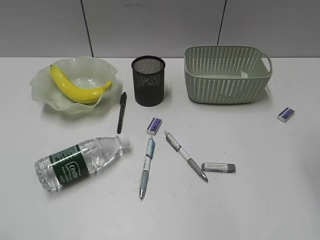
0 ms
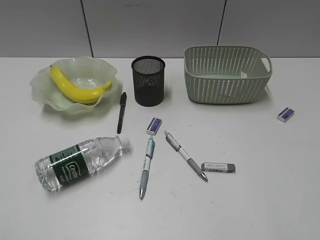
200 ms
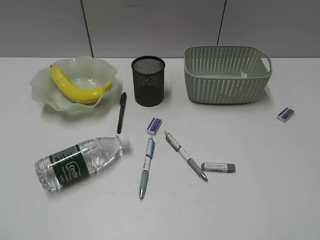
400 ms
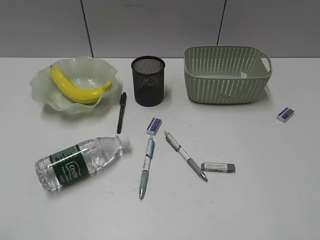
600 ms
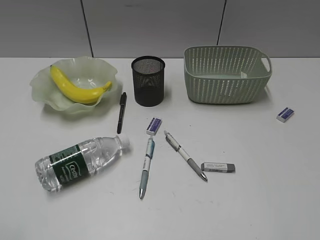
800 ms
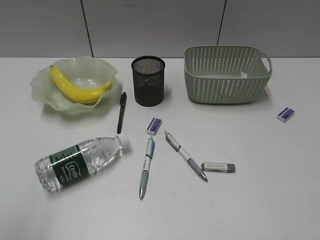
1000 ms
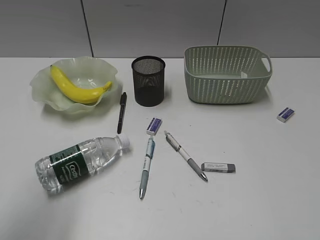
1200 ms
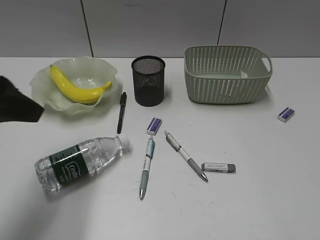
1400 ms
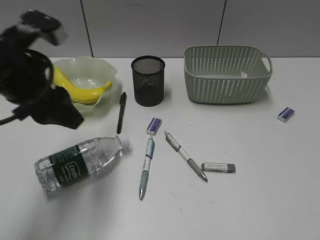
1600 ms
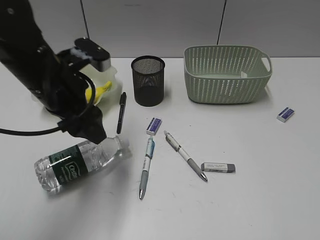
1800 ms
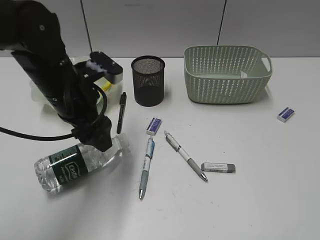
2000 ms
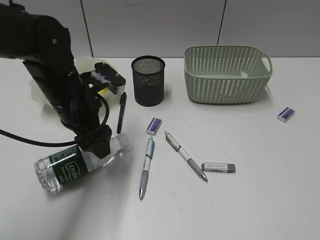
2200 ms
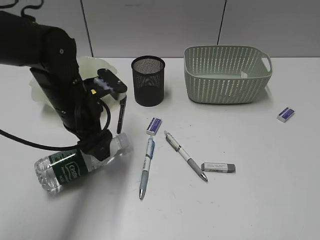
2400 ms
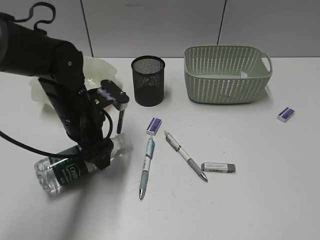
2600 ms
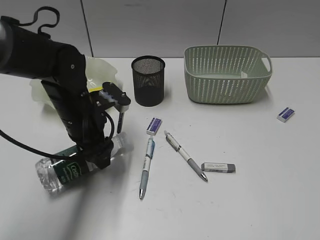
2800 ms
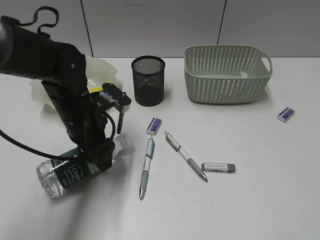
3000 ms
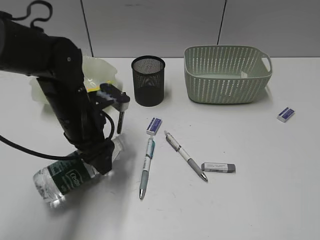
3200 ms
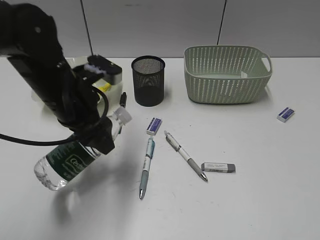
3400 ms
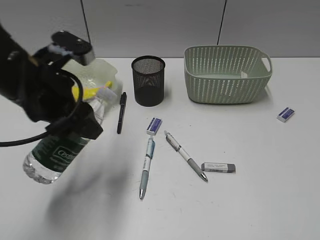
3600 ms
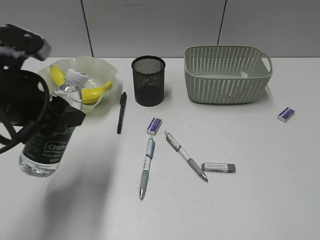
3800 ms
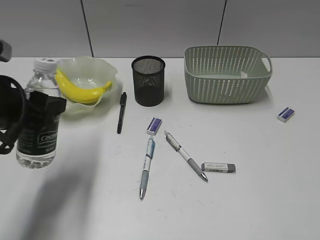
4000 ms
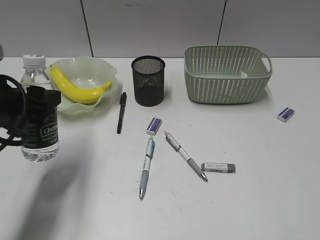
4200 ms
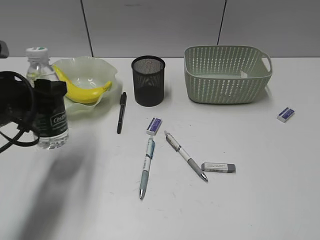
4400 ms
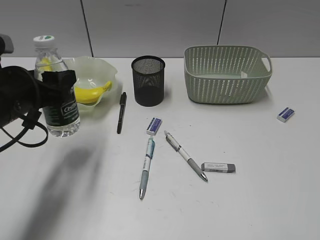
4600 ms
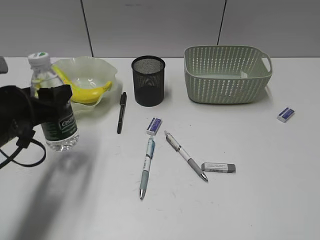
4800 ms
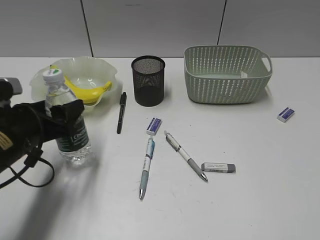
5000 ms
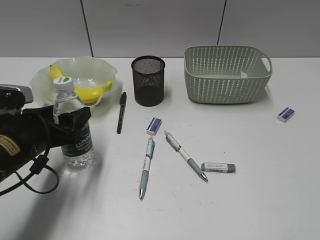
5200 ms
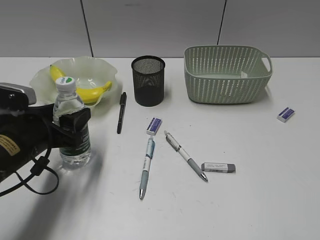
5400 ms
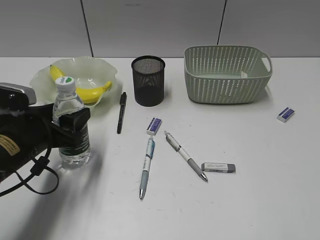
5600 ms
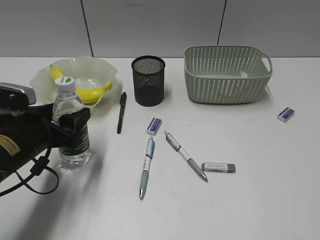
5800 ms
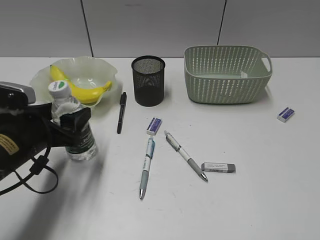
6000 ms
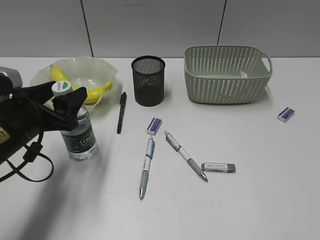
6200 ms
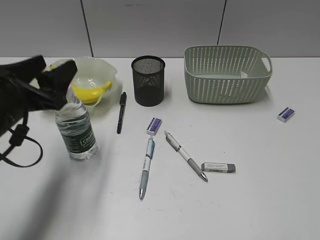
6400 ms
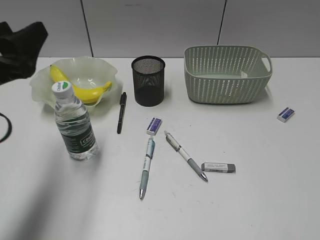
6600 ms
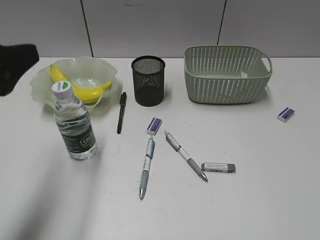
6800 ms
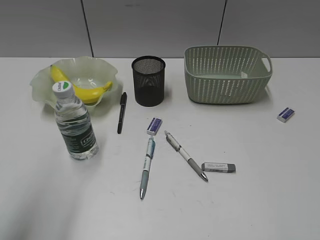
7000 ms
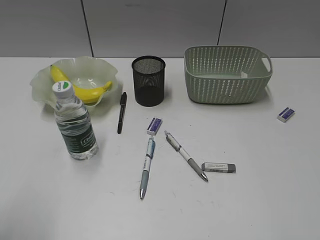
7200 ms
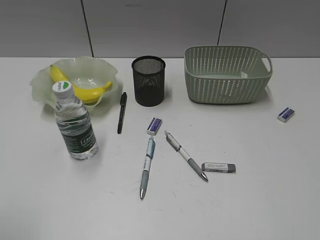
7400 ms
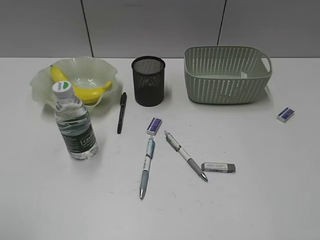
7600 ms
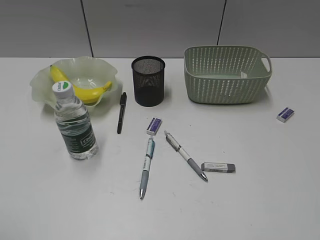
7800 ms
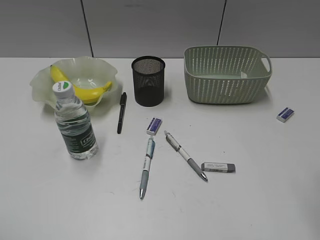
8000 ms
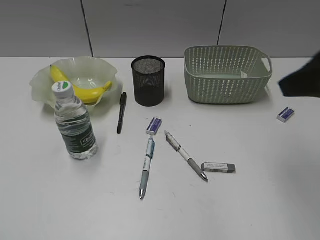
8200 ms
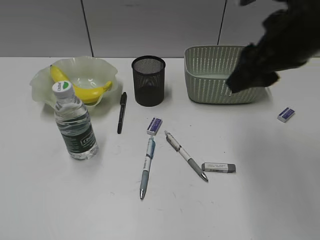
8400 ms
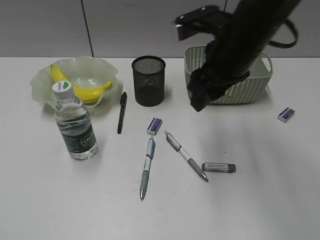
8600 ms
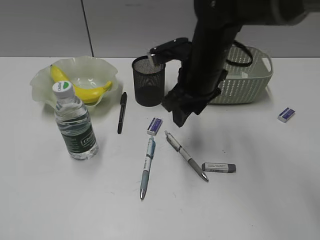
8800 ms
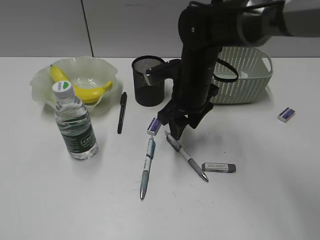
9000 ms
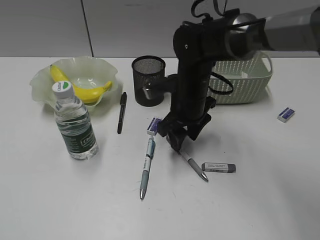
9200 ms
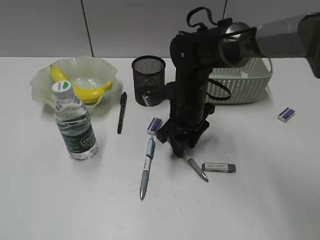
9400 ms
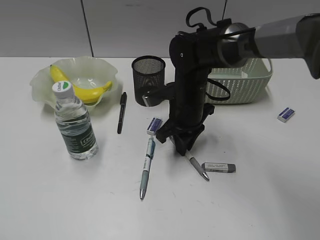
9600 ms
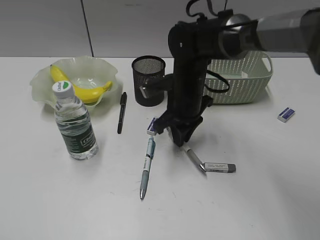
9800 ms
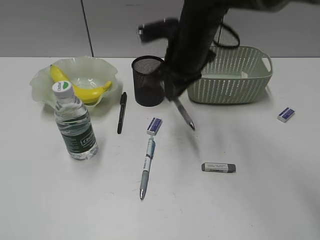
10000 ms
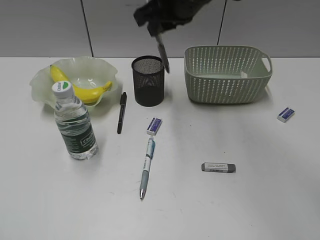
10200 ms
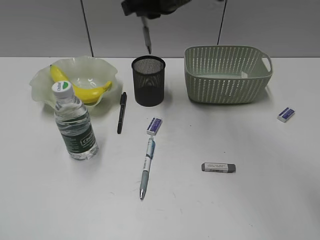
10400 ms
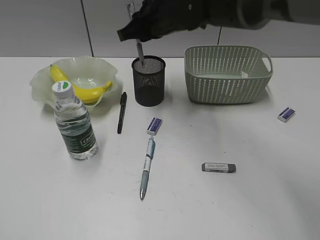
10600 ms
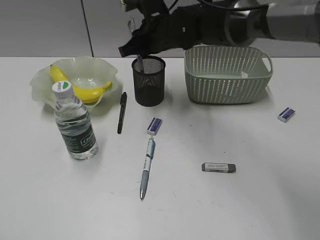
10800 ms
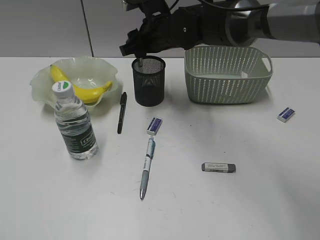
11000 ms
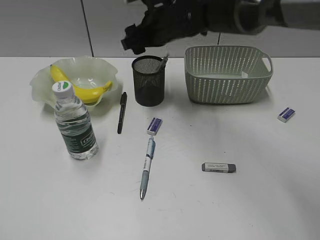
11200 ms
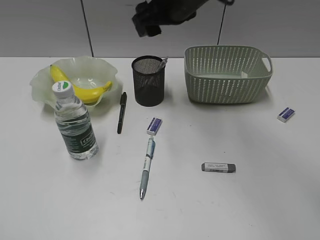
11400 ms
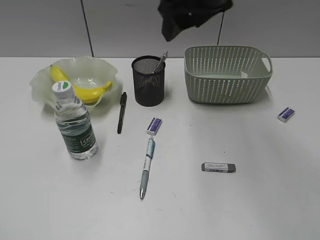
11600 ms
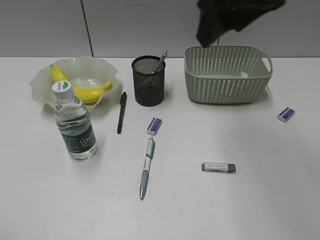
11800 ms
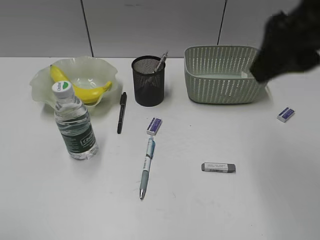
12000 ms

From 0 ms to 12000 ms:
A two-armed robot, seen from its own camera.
Step, from 0 ms to 2800 ms: Grasp the bottle with left gripper.
Step, from 3000 ms to 6200 ms: Stand the bottle with left gripper.
Step, from 6400 ms to 9600 ms: Grasp the gray pen with right gripper.
Step, from 9800 ms to 11000 ms: Place the gray pen in pen holder with right gripper.
From 0 ms to 1600 ms: The left gripper shifts approximately 30 cm forward and to the right, and opens its fingers. The right gripper heads backward, covering approximately 25 cm.
From 1600 ms to 3000 ms: The left gripper heads downward, to the right and forward, covering some 15 cm.
From 3000 ms to 4400 ms: The left gripper travels to the left, backward and upward by roughly 15 cm.
From 4400 ms to 6000 ms: The left gripper heads downward, covering some 5 cm.
From 6000 ms to 7600 ms: The left gripper shifts about 30 cm backward, upward and to the left.
From 7600 ms to 9000 ms: The right gripper moves forward and to the left, approximately 40 cm.
From 9000 ms to 10400 ms: The right gripper goes some 15 cm upward, and closes.
From 10400 ms to 12000 ms: The right gripper goes some 25 cm backward, to the right and upward, and opens its fingers.

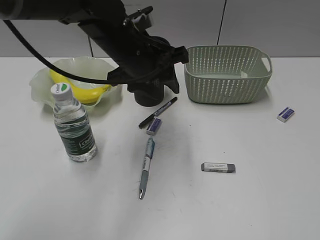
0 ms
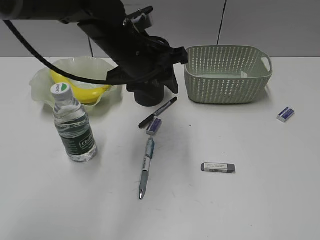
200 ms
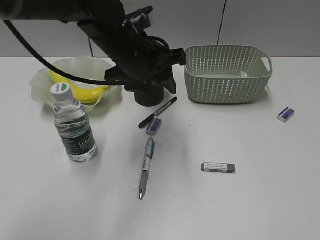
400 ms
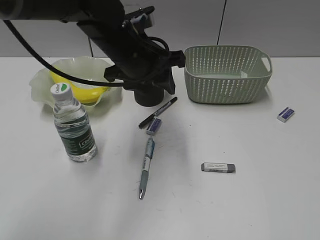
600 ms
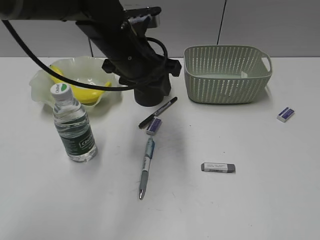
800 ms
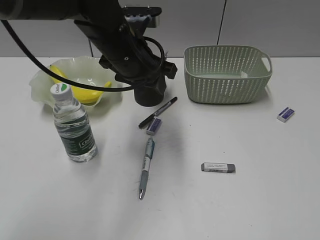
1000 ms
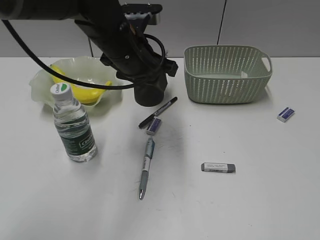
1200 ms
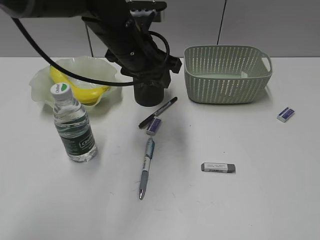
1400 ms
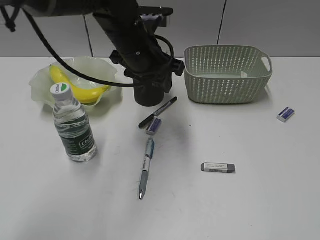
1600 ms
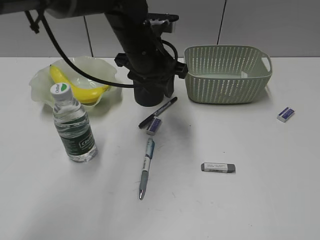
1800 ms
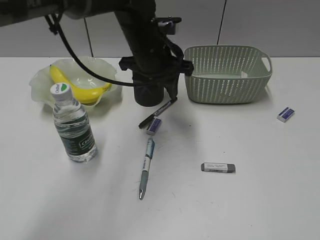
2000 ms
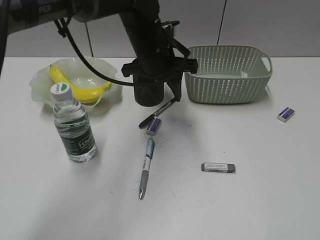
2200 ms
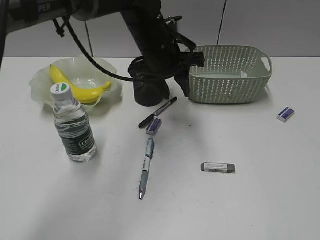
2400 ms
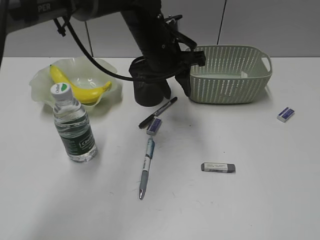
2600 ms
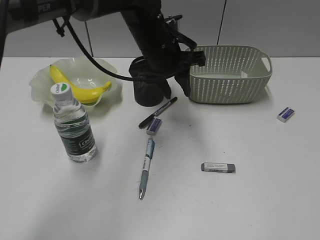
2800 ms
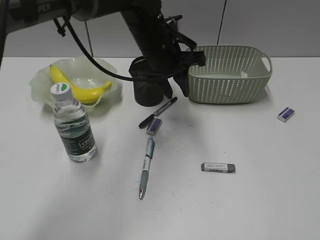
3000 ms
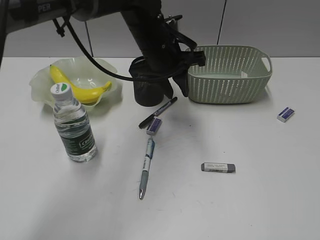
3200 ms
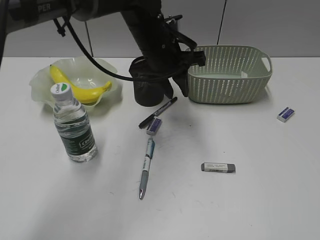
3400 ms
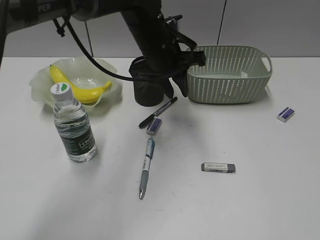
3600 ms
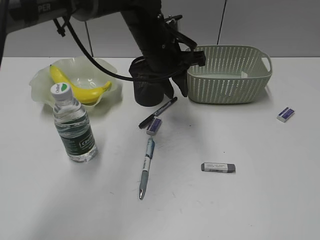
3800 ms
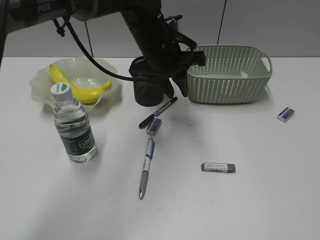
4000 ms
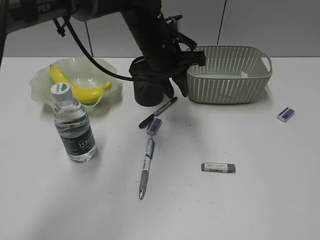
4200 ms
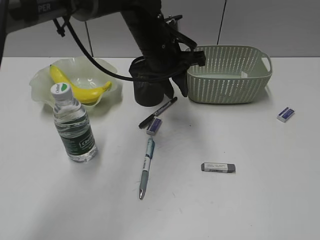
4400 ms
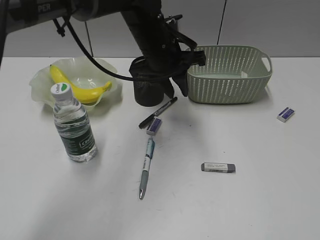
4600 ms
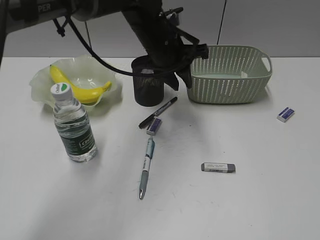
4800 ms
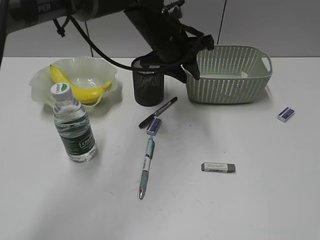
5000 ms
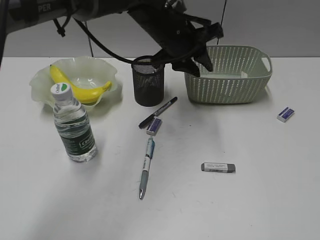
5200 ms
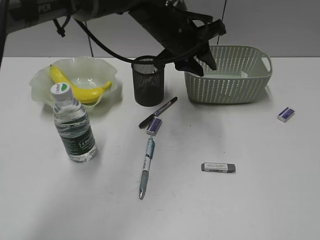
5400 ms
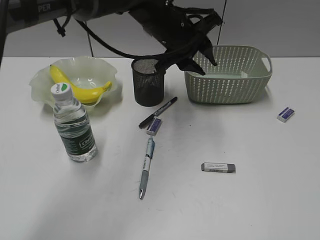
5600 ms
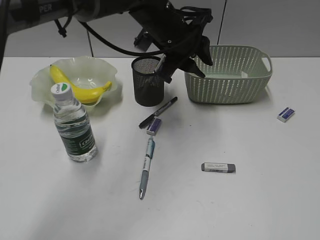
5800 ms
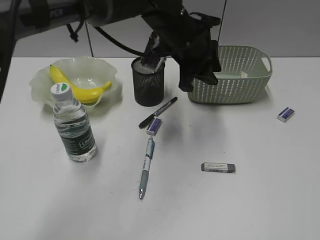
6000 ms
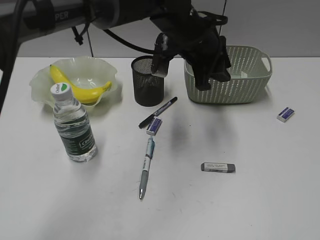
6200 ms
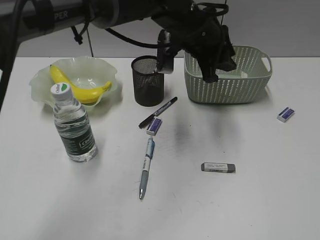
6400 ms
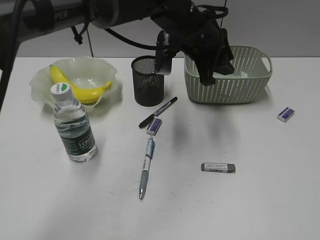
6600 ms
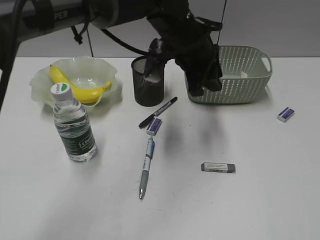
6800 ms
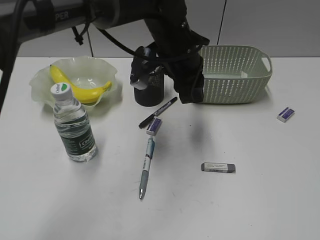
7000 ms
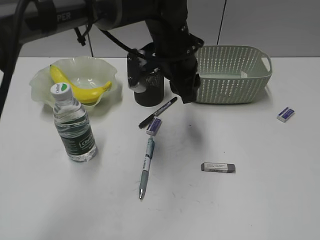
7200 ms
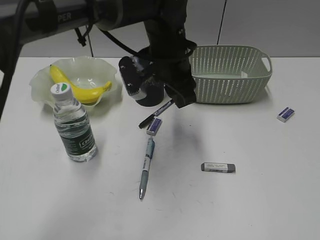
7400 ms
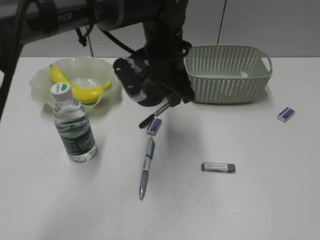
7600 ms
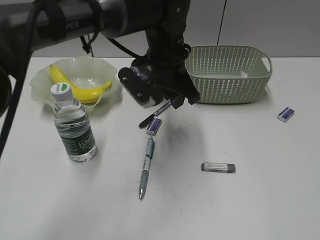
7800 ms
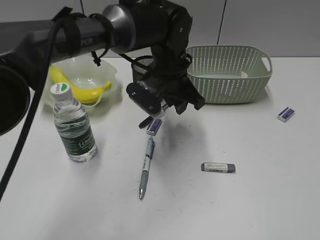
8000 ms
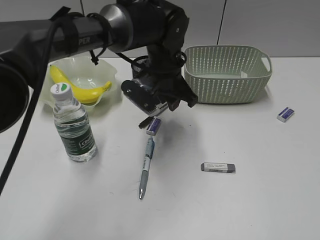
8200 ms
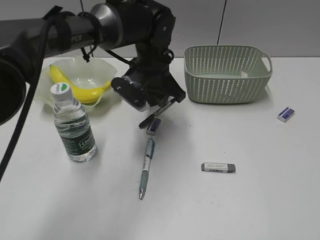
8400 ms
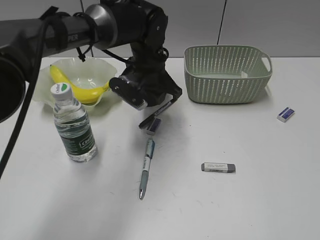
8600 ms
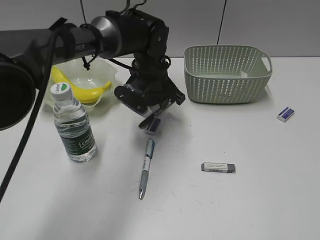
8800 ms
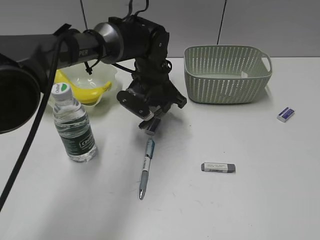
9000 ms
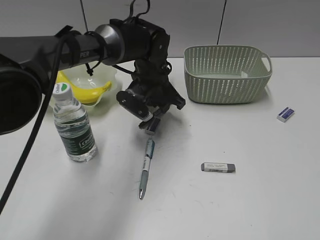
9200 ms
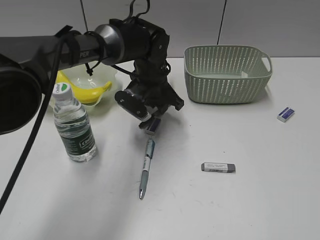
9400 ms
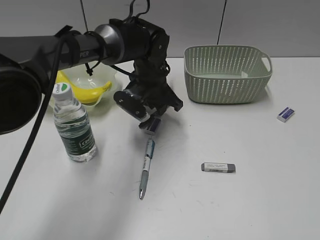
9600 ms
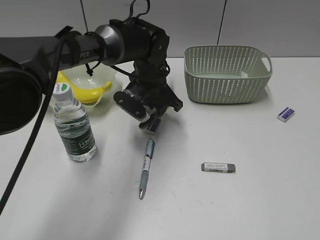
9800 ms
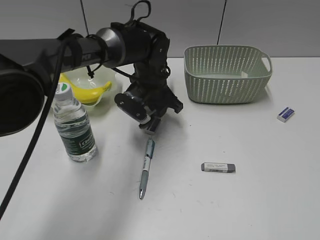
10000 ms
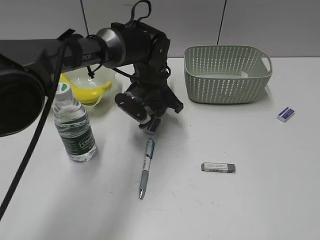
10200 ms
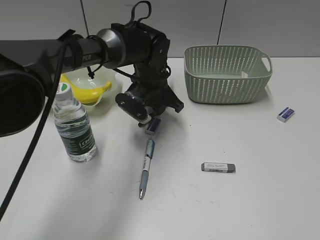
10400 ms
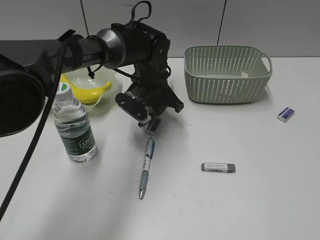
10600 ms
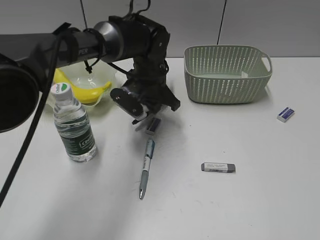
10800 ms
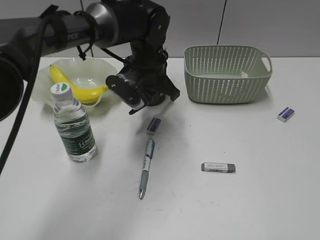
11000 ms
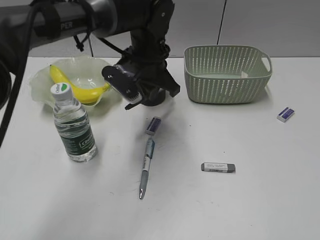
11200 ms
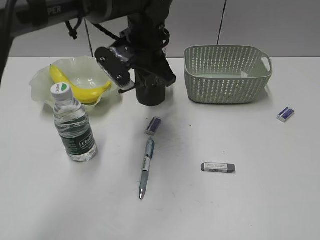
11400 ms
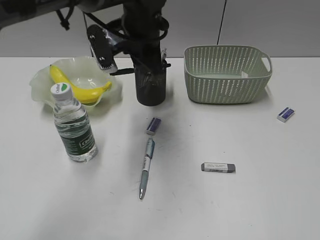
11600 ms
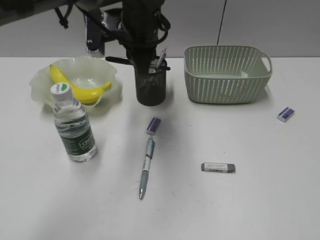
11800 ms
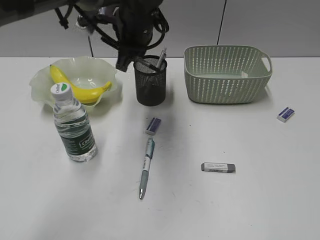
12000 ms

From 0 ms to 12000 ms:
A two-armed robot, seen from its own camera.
Step, from 0 ms to 10400 ms: Grasp the black pen with left gripper.
From 3000 ms to 4400 ms: Neither gripper changes place.
From 7600 ms to 9000 ms: The left gripper heads downward and forward, covering roughly 10 cm.
From 9000 ms to 10400 ms: The left gripper closes up.
From 10400 ms to 12000 ms: The left gripper goes about 15 cm upward.
